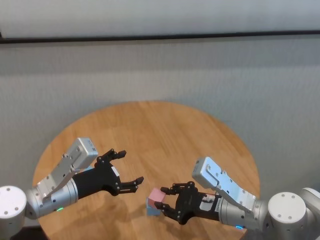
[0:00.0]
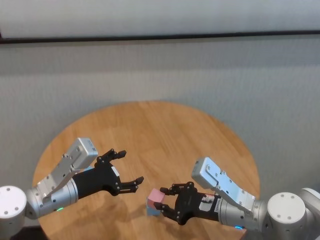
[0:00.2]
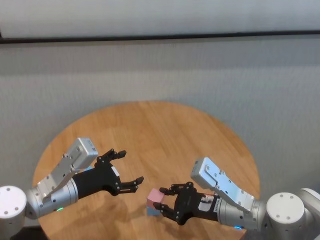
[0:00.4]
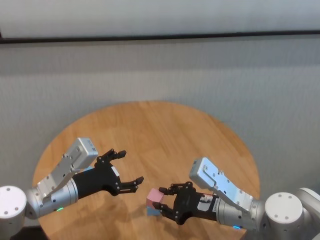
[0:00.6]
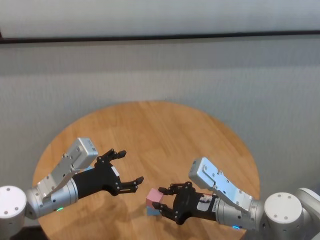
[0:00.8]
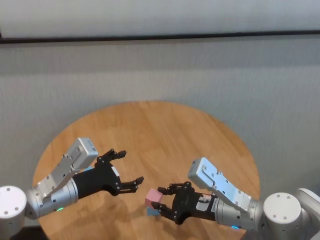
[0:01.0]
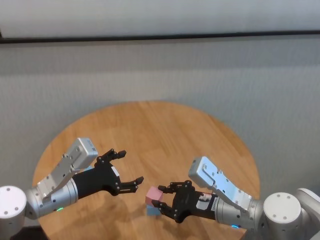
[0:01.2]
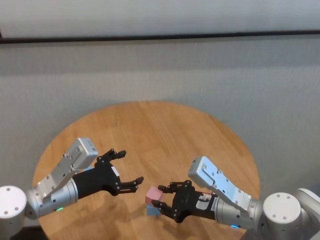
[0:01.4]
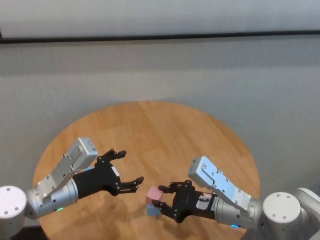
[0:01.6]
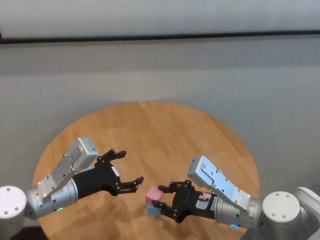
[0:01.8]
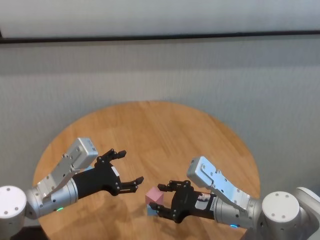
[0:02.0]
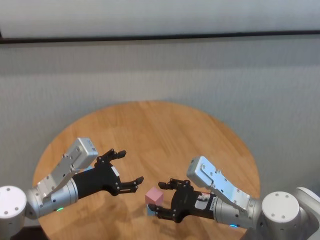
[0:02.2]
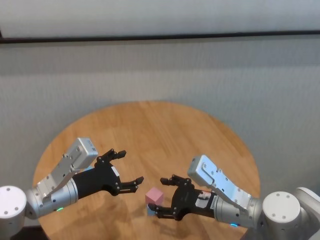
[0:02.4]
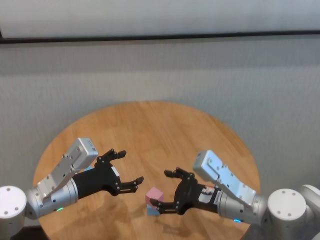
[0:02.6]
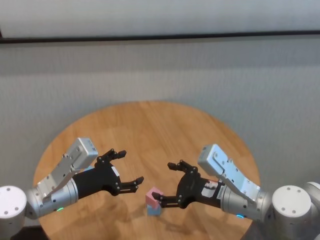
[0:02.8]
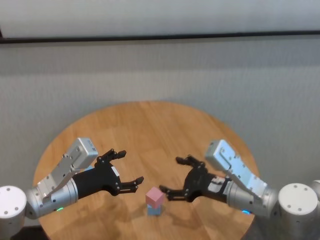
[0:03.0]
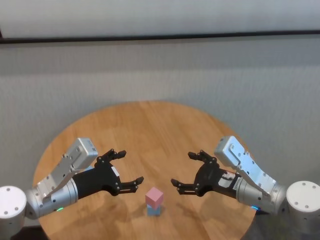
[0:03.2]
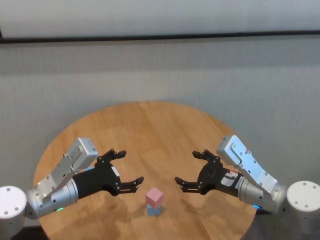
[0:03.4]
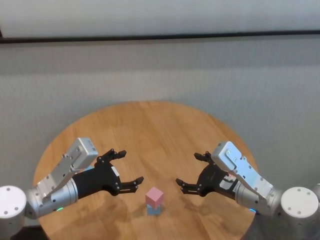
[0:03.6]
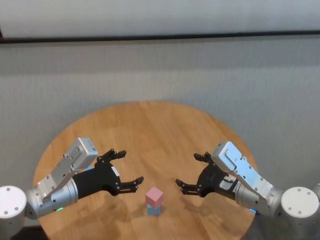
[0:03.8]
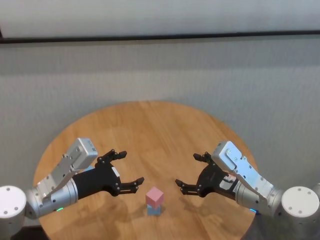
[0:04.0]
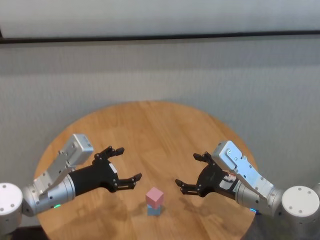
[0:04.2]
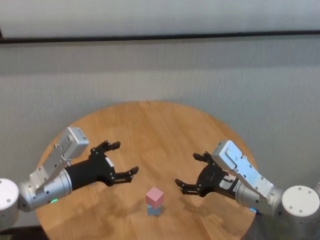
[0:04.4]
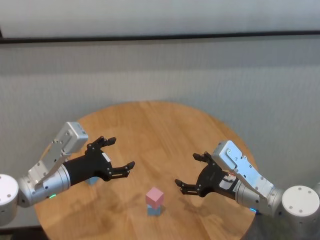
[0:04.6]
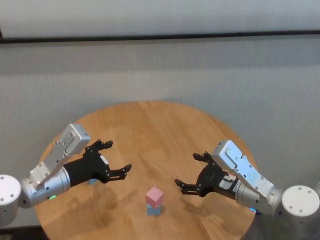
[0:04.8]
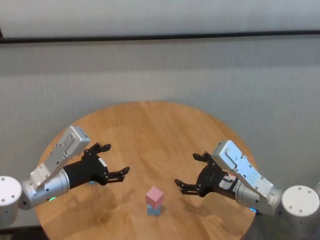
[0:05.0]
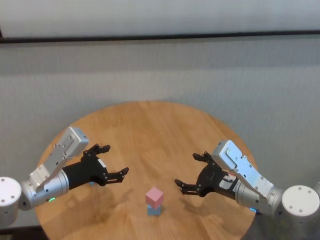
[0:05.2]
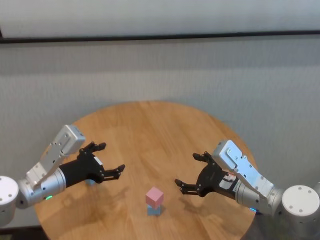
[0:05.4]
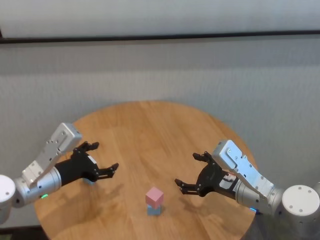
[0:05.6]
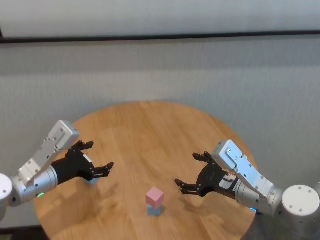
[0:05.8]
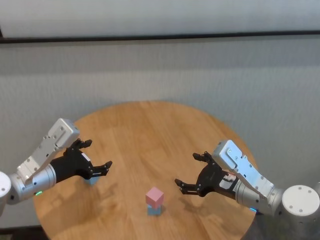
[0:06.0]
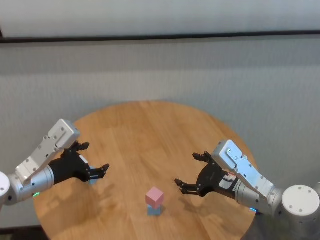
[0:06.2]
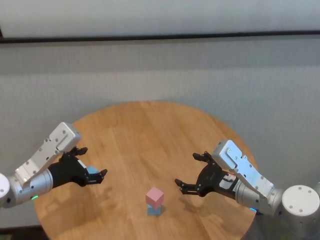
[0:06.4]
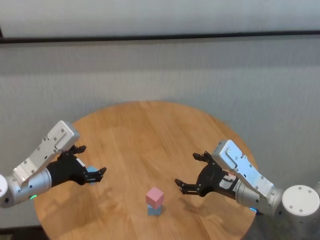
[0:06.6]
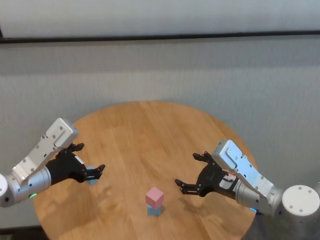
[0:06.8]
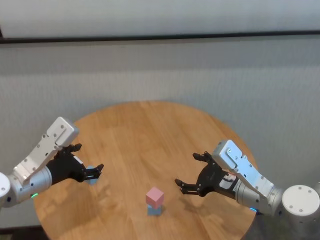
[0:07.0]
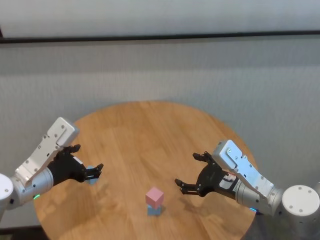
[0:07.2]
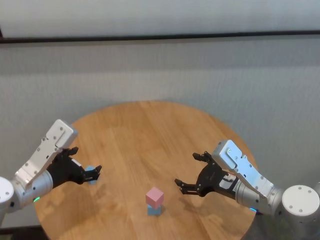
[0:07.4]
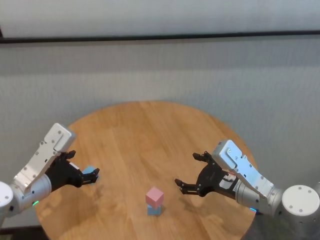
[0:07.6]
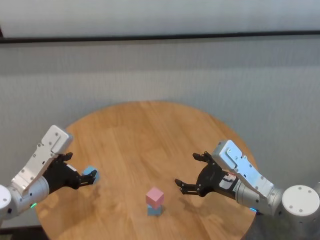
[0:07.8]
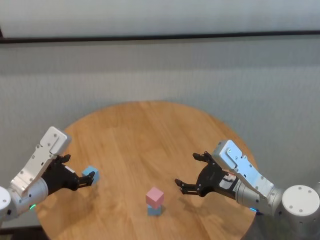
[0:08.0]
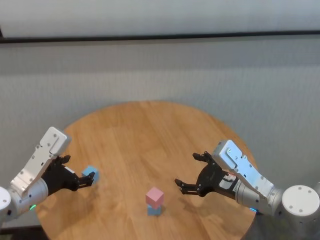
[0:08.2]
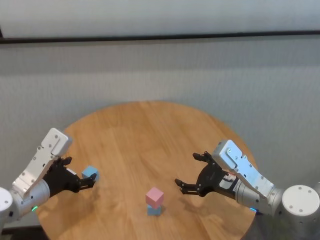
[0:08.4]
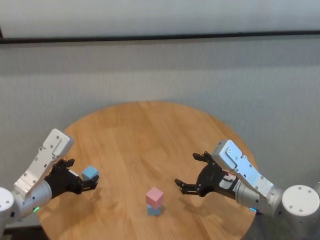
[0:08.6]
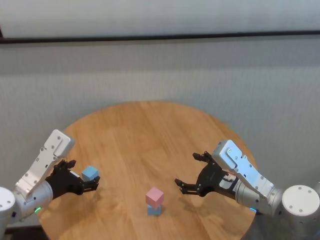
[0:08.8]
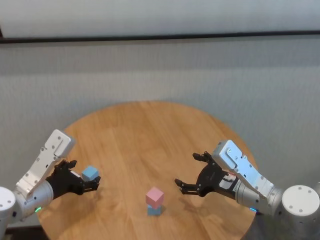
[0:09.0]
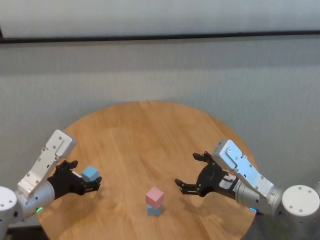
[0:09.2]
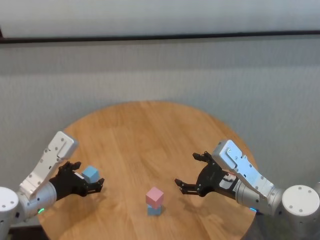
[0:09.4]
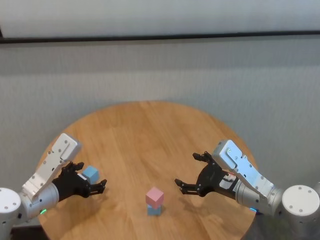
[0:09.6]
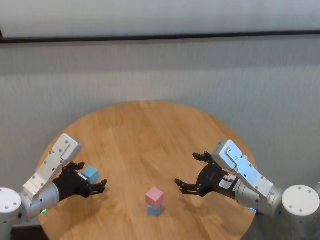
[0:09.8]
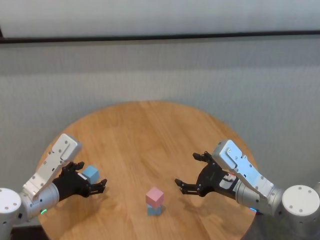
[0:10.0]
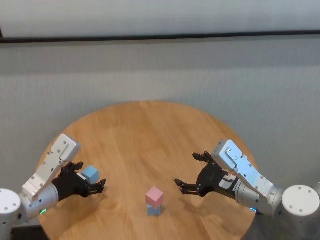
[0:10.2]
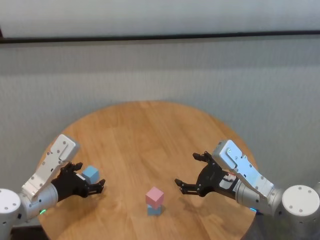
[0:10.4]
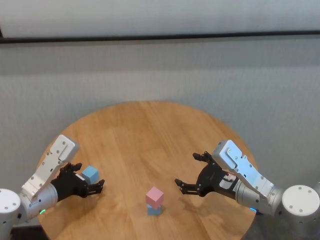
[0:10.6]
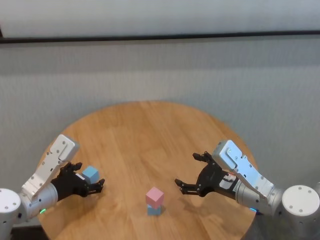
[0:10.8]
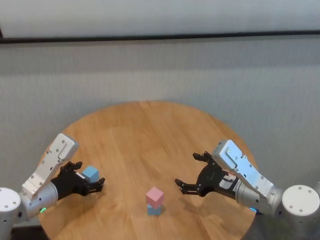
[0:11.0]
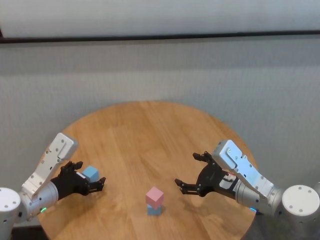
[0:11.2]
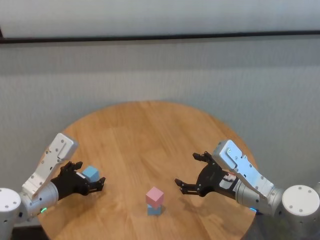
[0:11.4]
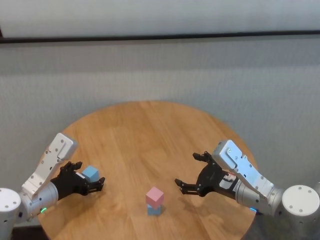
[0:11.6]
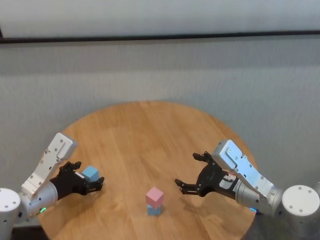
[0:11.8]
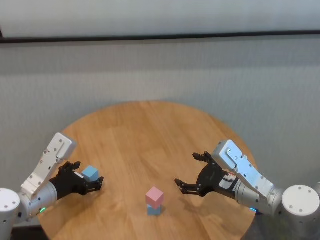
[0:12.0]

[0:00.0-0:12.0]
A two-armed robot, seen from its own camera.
Task of the whole recording: stack building blocks on the table.
Step, 0:00.0 to 0:02.4: Place the pink building block on the blue building blocks with right gripper.

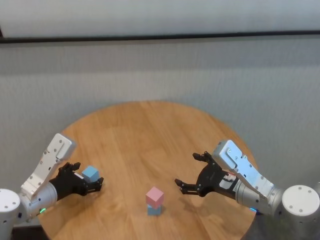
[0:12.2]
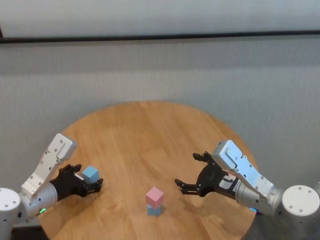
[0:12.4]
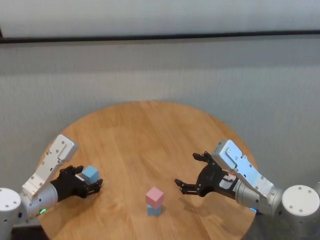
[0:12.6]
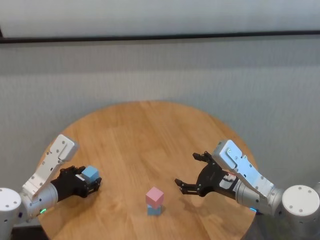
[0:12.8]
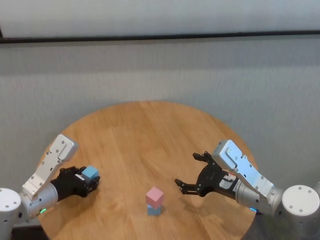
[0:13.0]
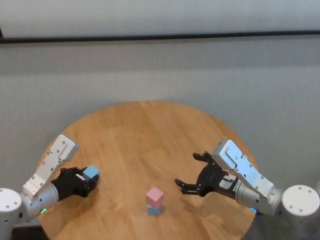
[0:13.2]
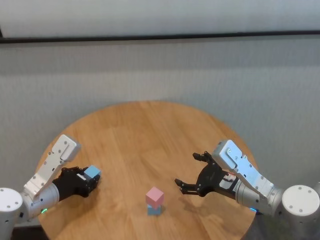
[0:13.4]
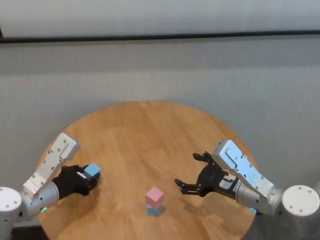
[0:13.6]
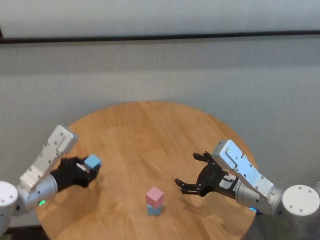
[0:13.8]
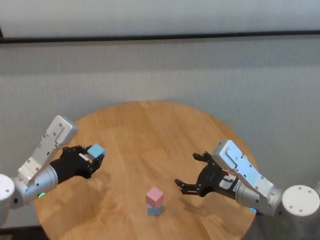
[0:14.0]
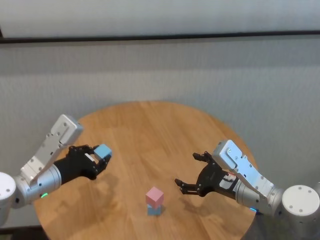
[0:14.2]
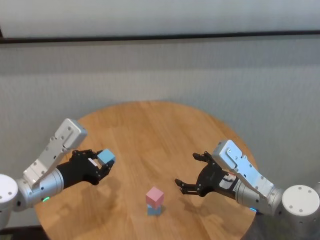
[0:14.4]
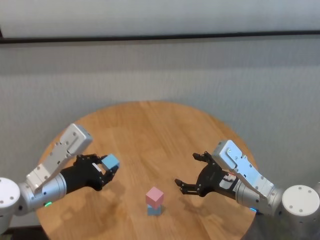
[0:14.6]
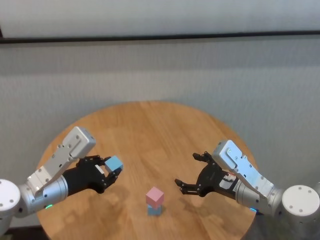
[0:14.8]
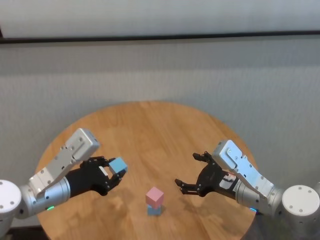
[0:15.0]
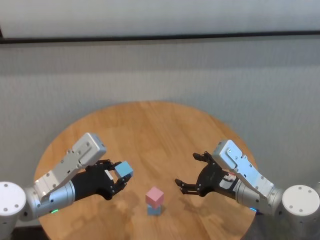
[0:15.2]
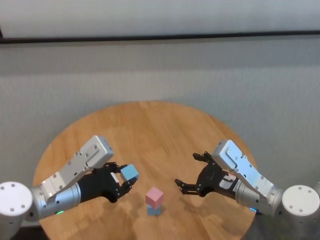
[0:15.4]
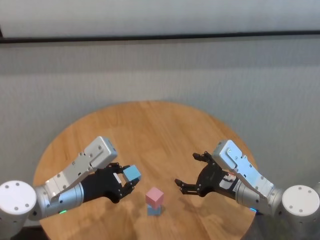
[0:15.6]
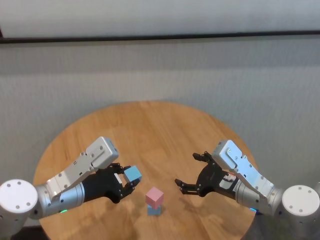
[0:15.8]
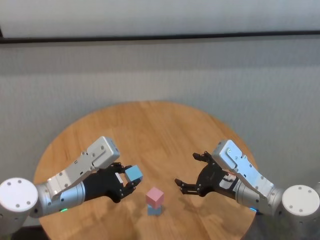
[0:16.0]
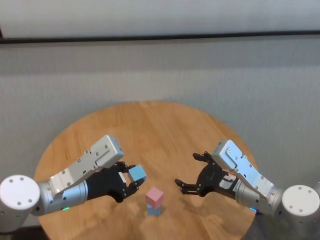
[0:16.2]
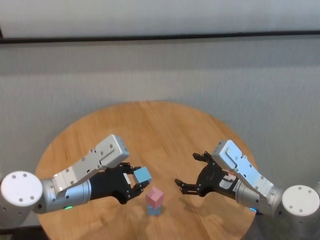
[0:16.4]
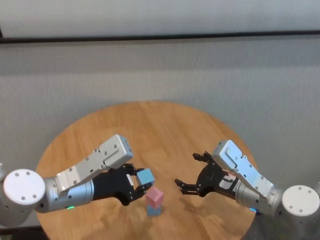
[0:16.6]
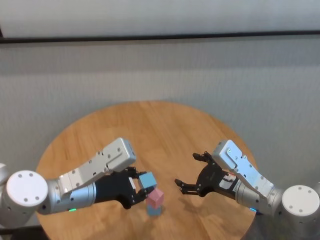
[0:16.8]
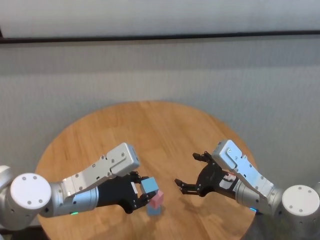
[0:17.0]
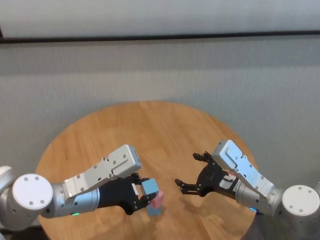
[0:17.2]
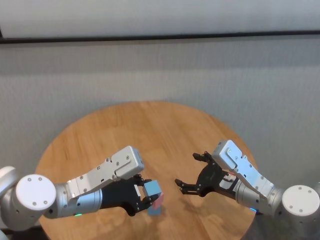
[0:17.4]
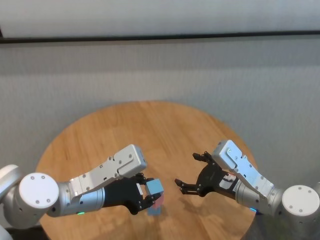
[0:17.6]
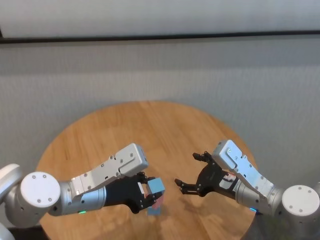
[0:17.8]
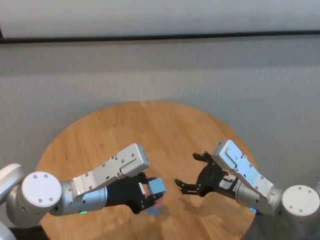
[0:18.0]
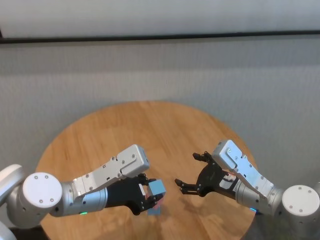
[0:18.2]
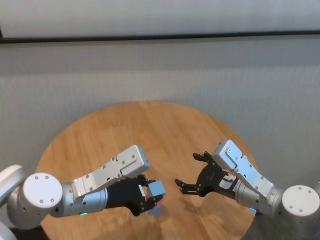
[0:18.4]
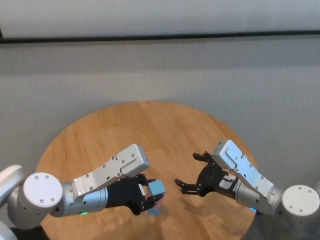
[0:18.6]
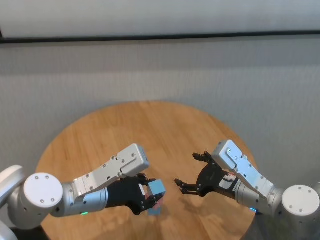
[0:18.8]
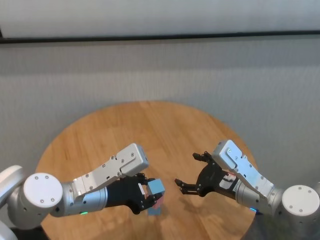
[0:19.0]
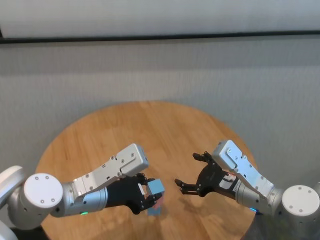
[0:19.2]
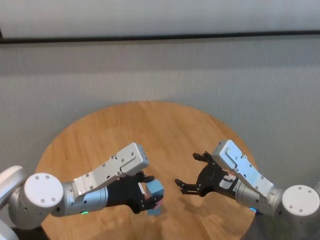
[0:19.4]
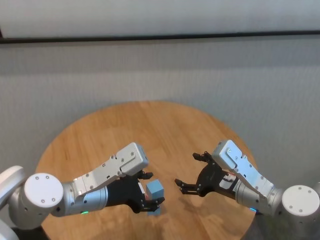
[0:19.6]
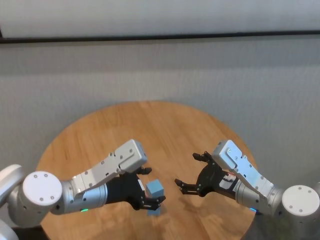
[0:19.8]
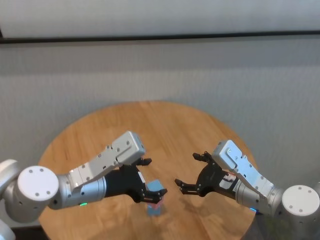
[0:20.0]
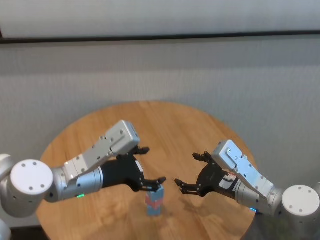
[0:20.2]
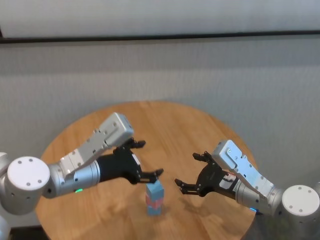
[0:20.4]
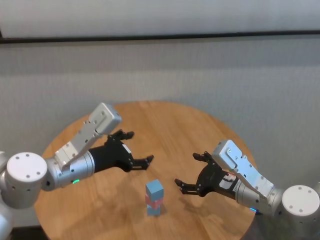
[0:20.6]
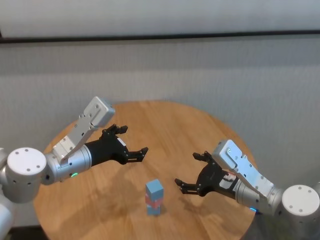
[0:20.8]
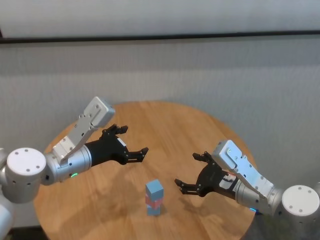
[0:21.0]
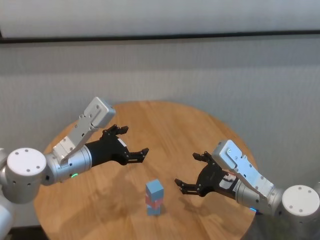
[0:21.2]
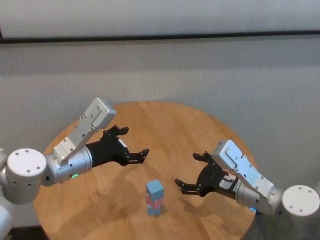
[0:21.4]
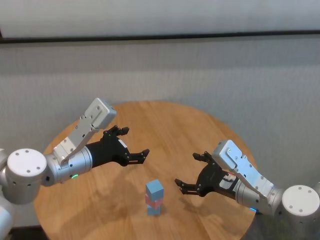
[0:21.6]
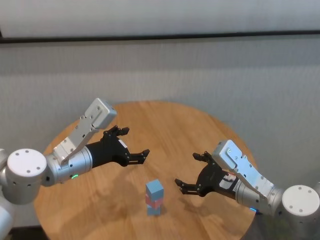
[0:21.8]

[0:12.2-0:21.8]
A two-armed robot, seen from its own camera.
Task of the whole recording: stack building blocks on the table.
Step, 0:13.4 to 0:19.8: Place the blue building block on the pink building blocks with left gripper.
